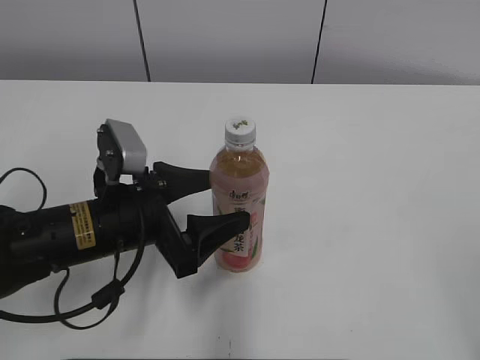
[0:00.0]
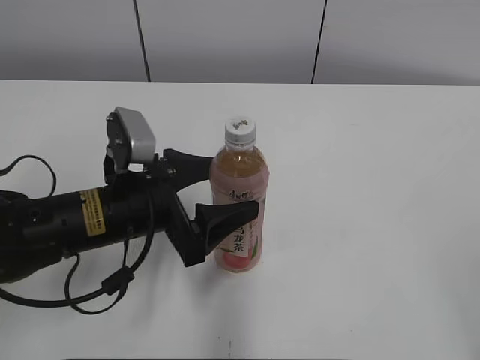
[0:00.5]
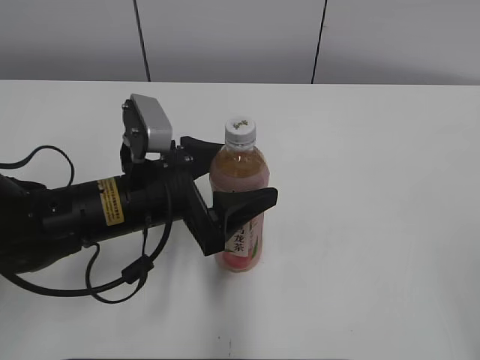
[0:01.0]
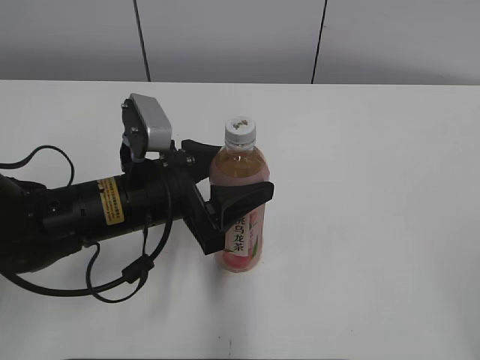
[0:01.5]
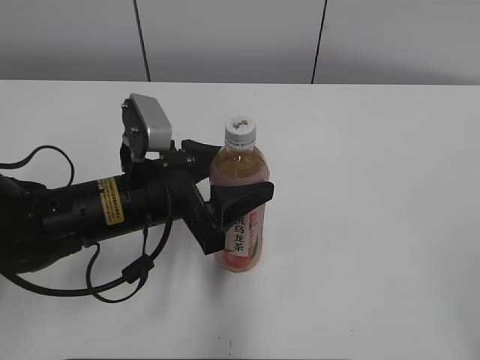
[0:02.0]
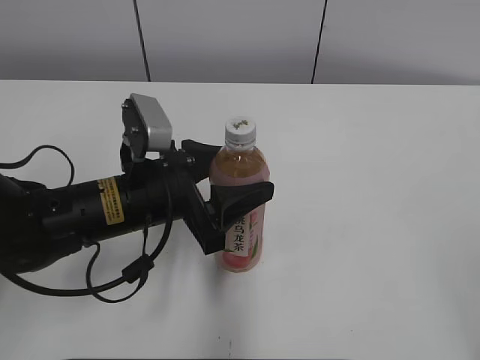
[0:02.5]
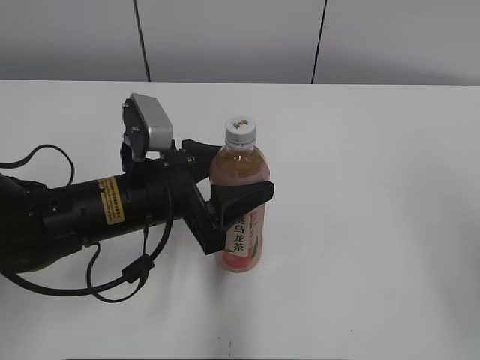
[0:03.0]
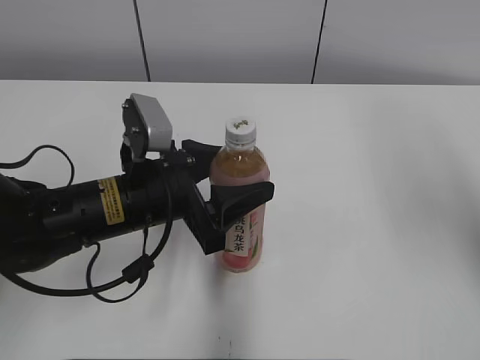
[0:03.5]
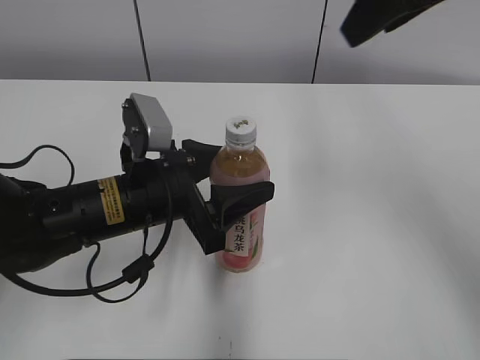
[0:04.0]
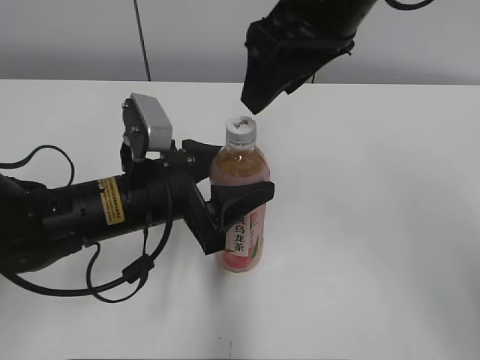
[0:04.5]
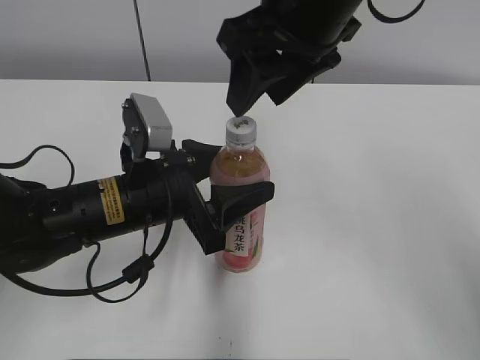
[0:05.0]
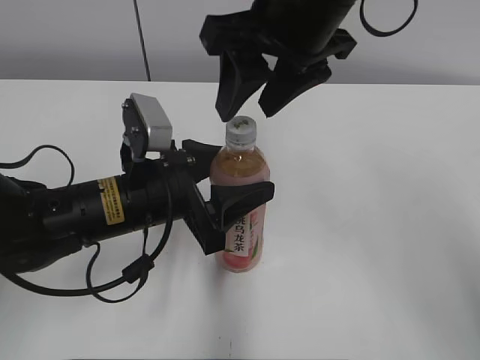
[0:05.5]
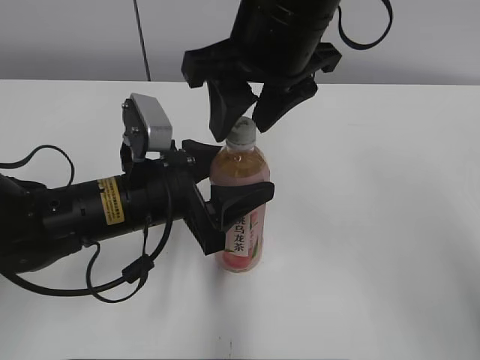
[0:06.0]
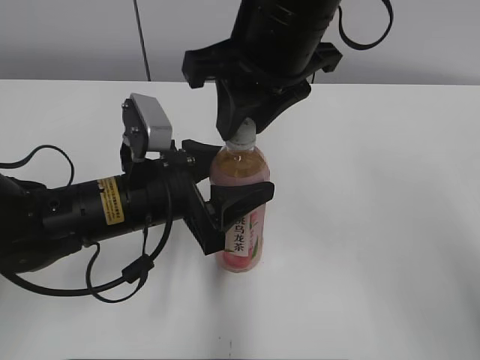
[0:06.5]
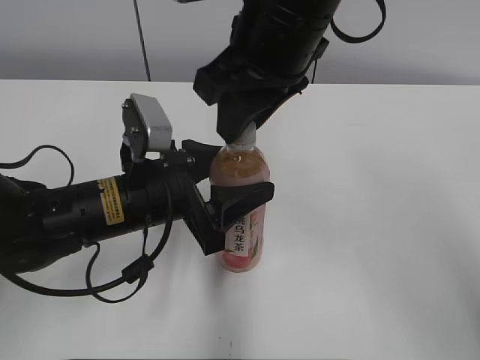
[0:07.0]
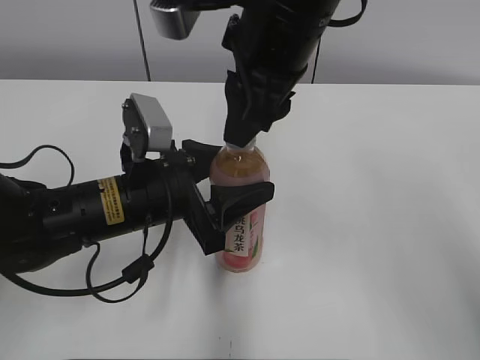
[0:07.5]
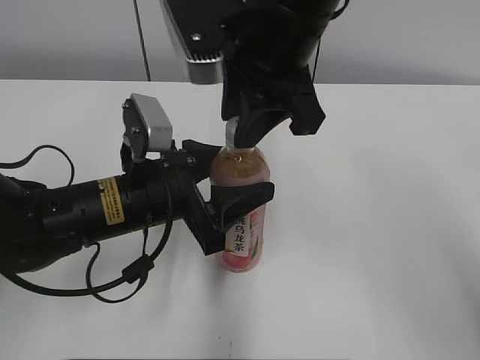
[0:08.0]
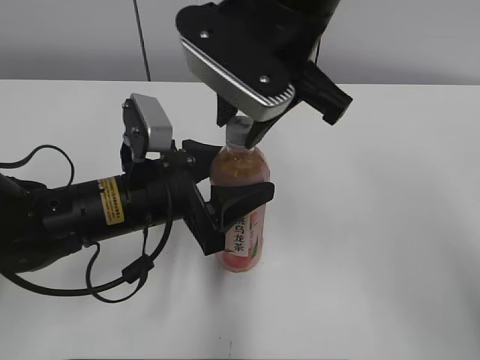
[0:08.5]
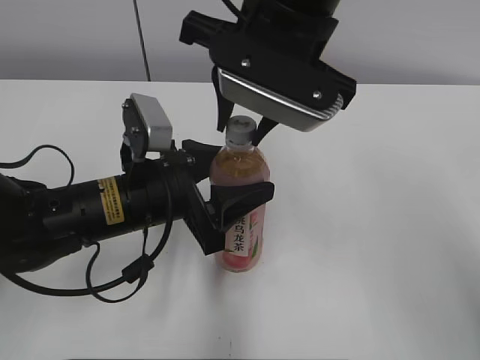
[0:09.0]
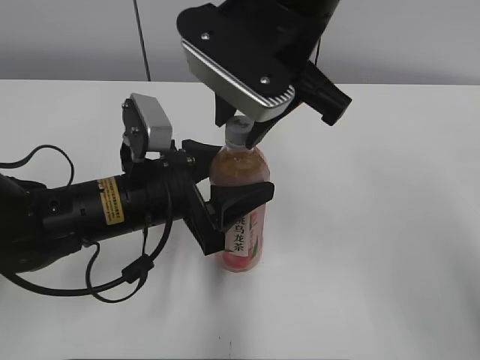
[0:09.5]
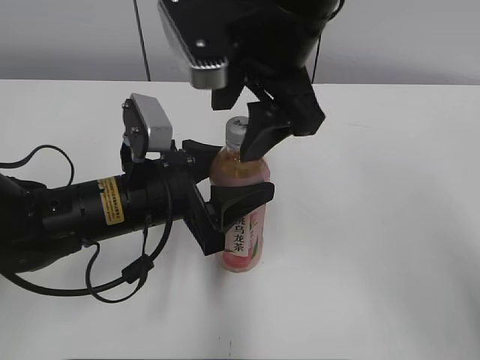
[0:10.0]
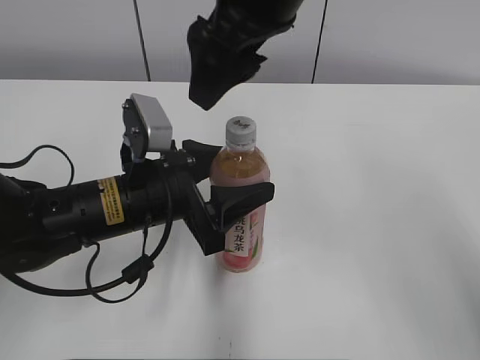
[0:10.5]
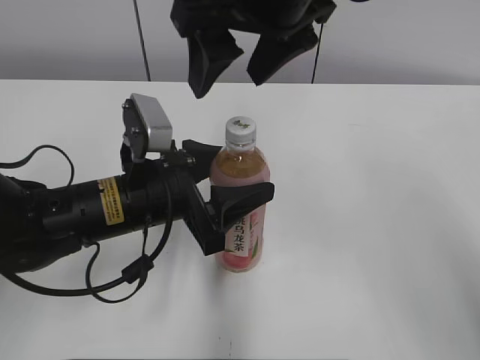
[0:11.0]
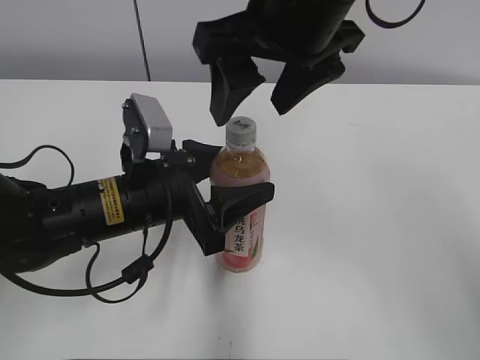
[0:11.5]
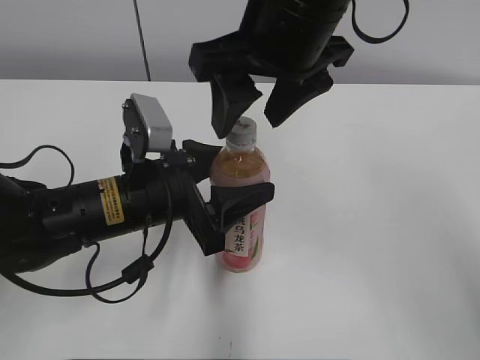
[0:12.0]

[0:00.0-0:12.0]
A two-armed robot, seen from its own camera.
0.0 to 2.0 s: The left gripper closes up.
2.0 to 4.0 s: The right gripper travels forward and to the left by about 35 cm.
4.0 to 6.0 s: The right gripper shifts some 15 cm to the left and downward.
6.0 to 8.0 s: The right gripper closes.
8.0 to 10.0 s: The right gripper opens its fingers.

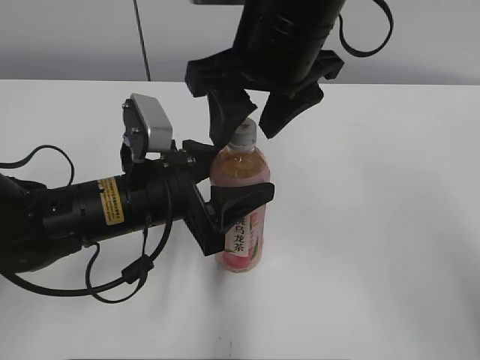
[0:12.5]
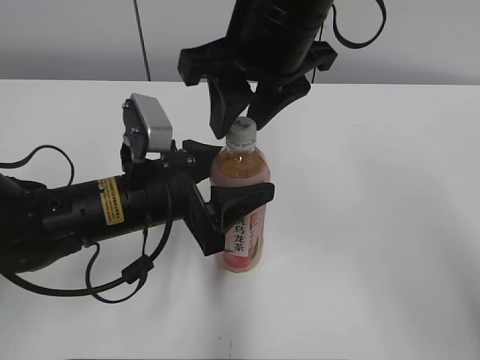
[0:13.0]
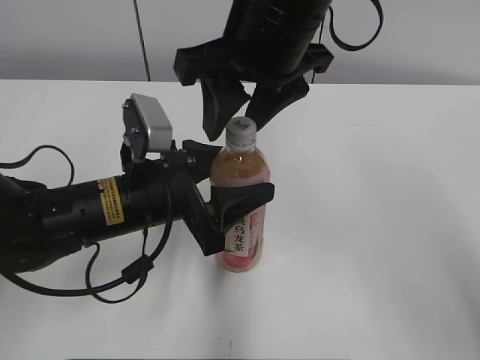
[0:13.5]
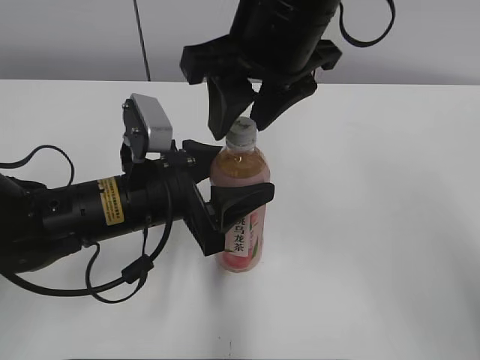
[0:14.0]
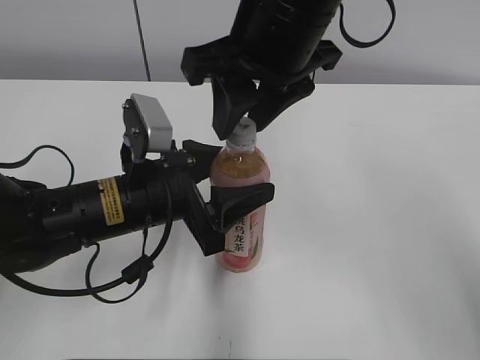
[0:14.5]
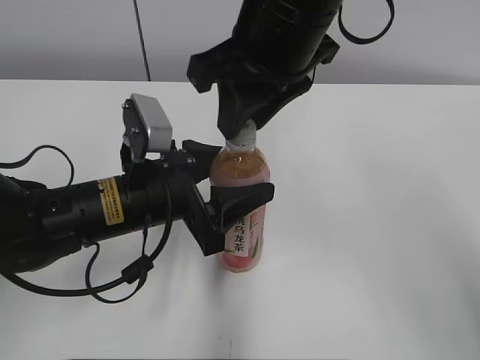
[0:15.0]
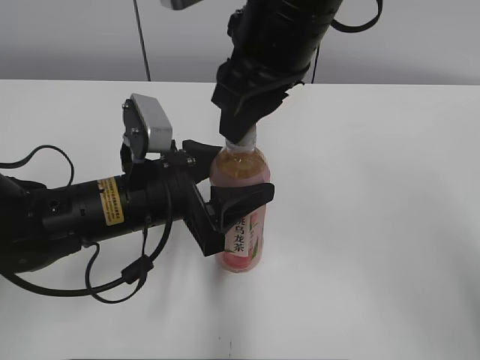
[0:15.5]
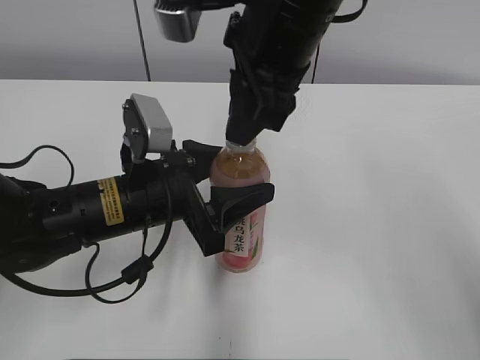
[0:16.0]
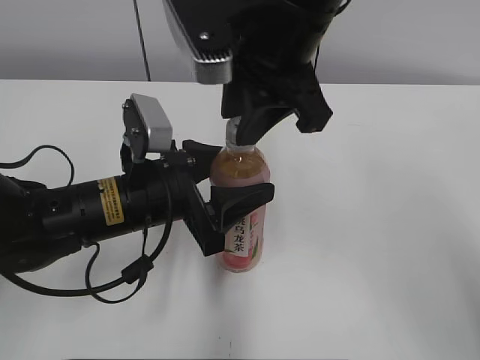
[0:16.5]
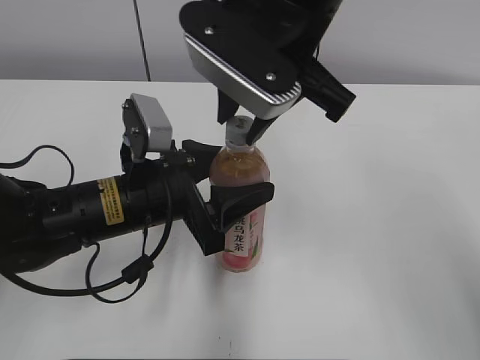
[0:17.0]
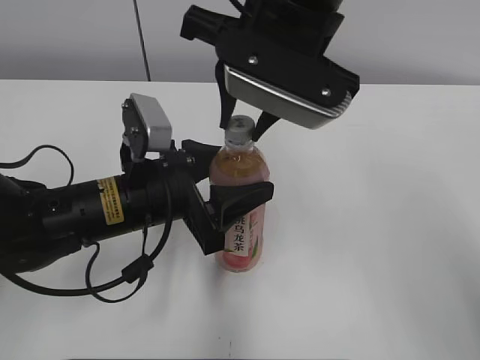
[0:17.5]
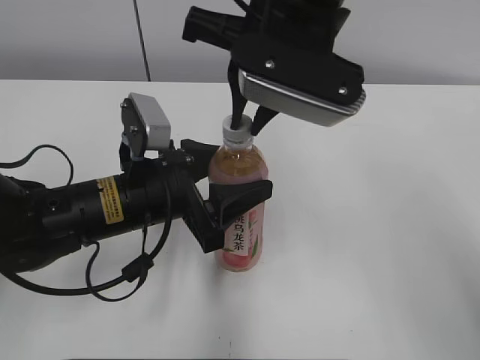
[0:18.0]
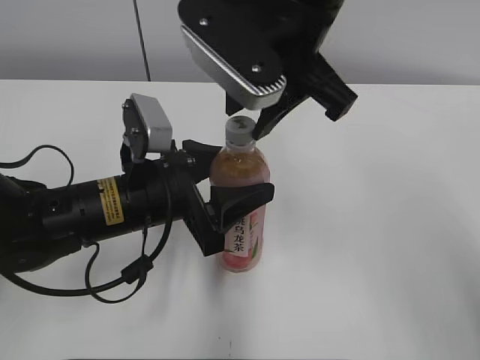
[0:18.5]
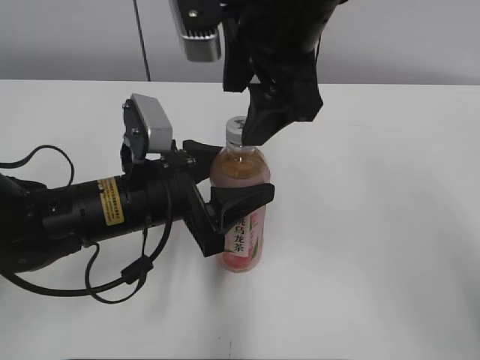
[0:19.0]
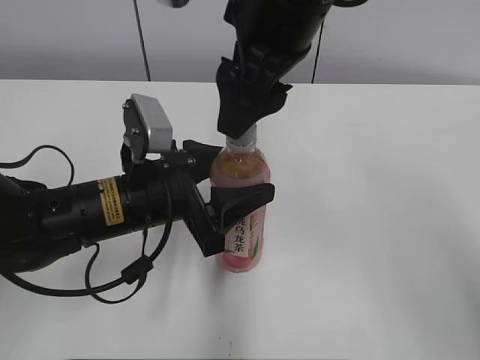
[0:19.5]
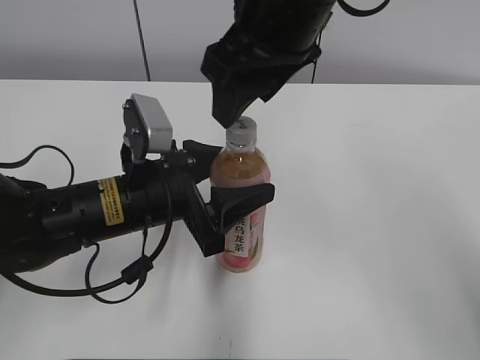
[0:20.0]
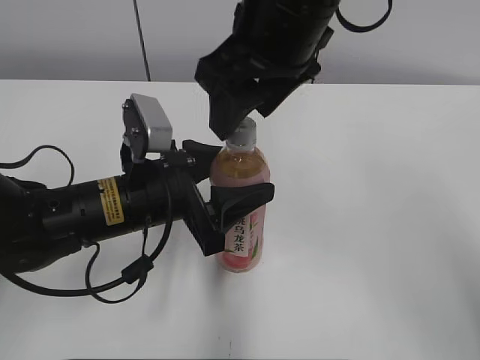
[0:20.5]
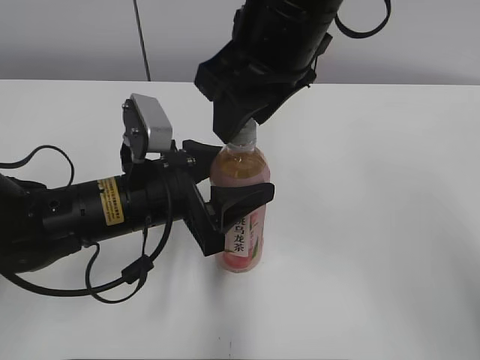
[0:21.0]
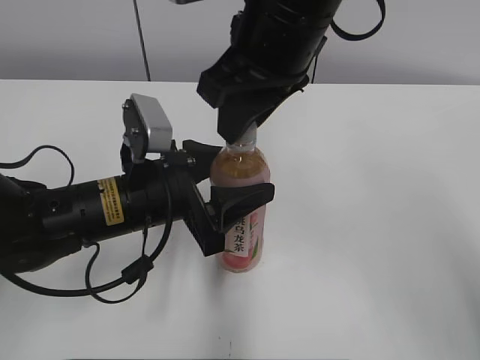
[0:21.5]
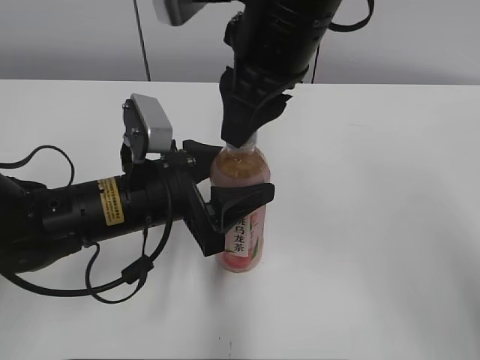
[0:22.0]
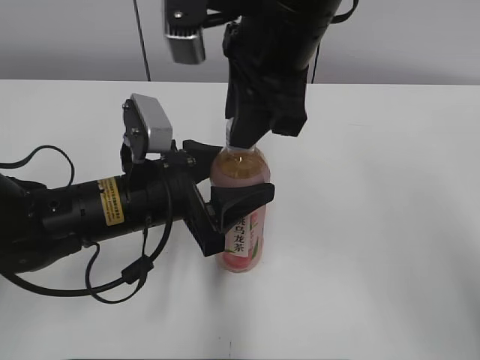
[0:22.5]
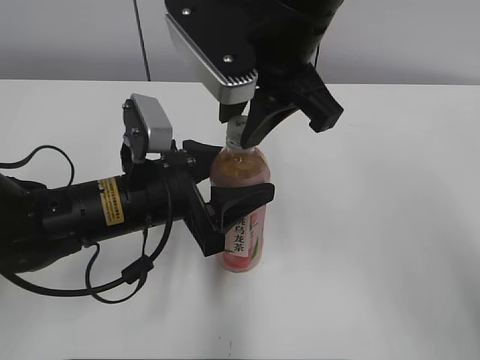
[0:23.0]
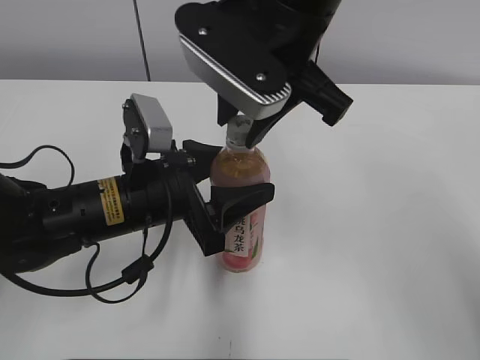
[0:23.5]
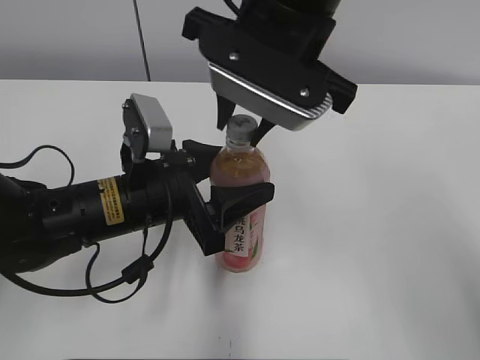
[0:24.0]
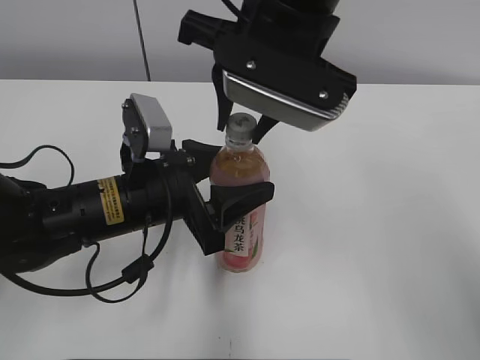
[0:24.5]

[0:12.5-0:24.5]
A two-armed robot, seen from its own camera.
12.5 to 14.5 s: The right gripper closes.
18.5 to 20.5 s: The right gripper opens.
20.5 to 22.5 s: The right gripper closes up.

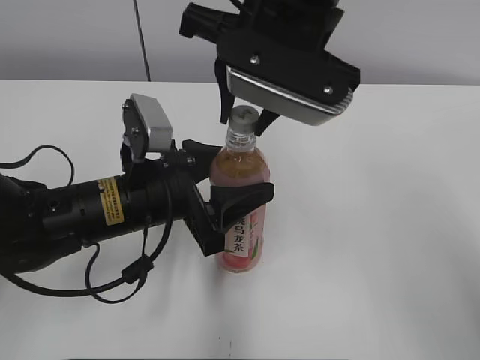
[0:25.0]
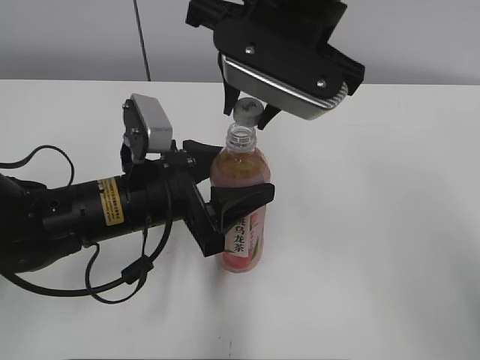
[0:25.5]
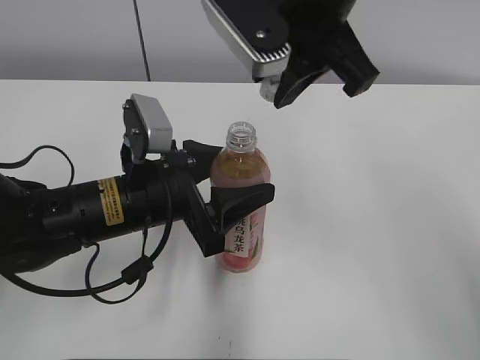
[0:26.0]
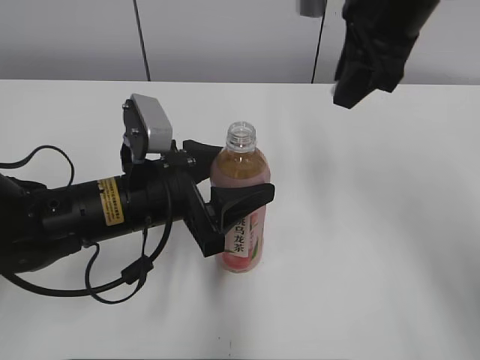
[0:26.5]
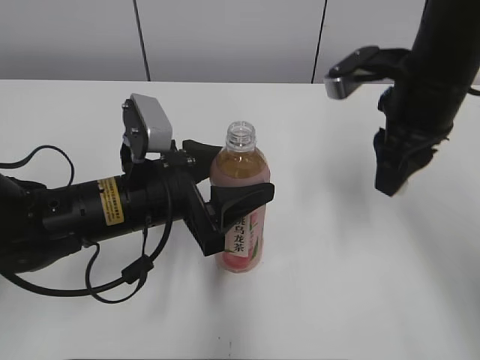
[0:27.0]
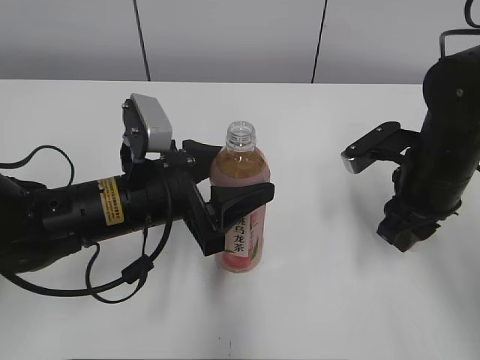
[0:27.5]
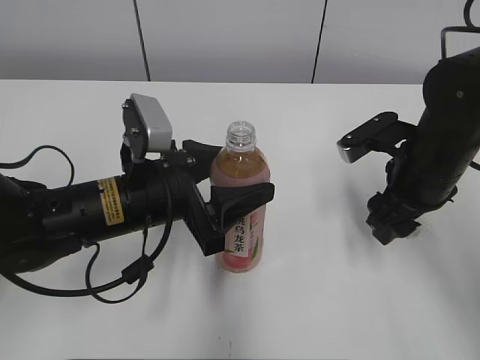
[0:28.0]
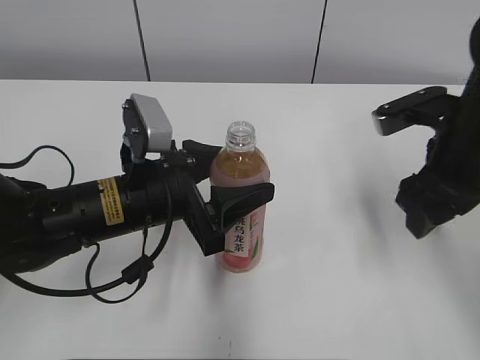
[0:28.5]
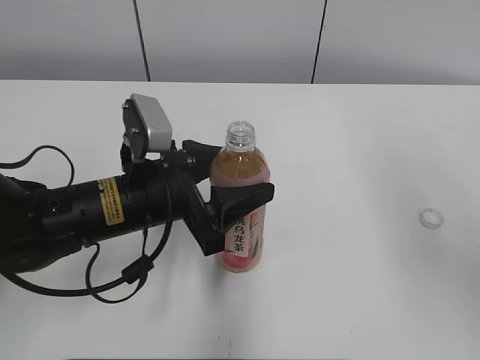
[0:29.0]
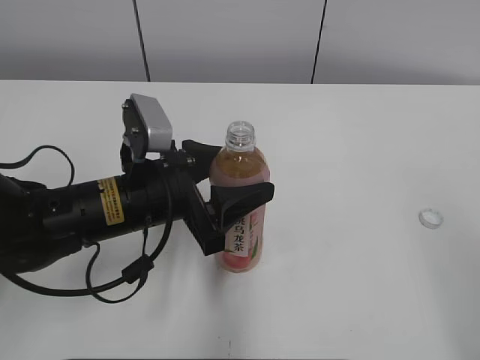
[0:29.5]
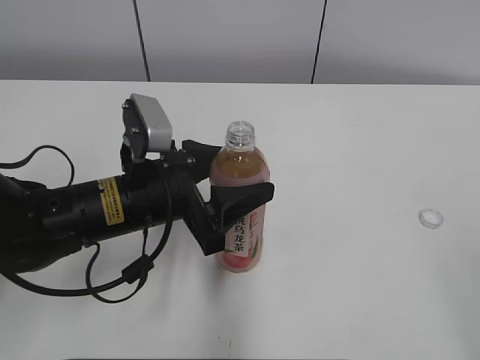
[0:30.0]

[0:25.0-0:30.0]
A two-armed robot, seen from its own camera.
Step, 25.5 to 28.0 s: Place the bottle cap on the right.
25.0 to 27.5 s: The right gripper travels to the right and downward by about 25 cm.
27.5 to 30.0 s: The right gripper goes roughly 30 cm backward and upward, and opens up.
